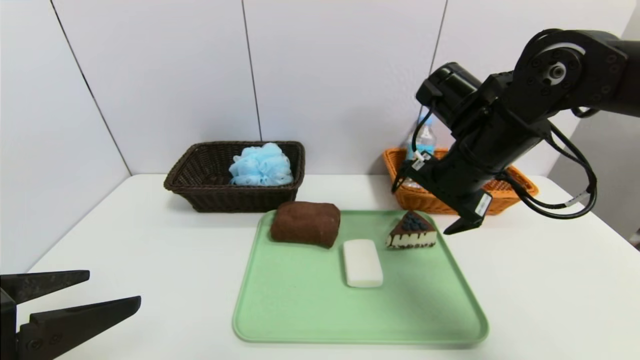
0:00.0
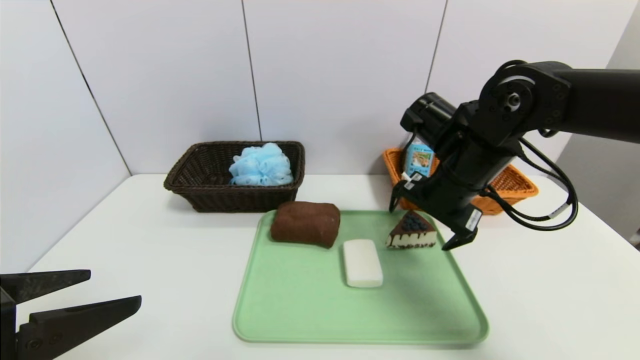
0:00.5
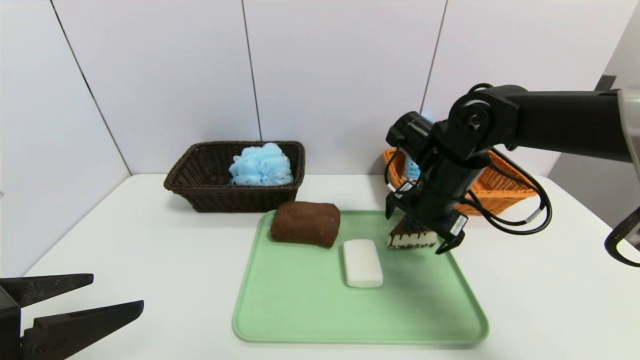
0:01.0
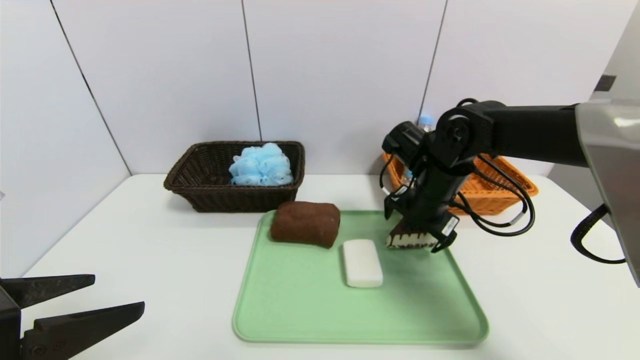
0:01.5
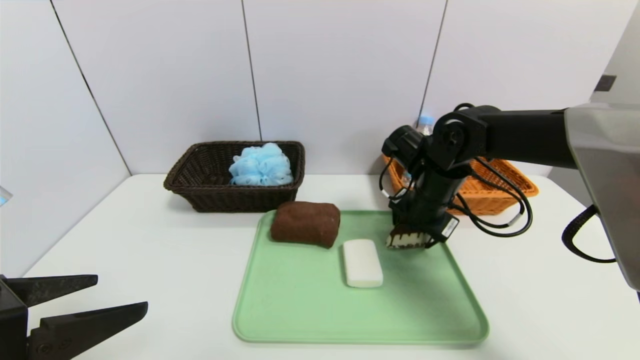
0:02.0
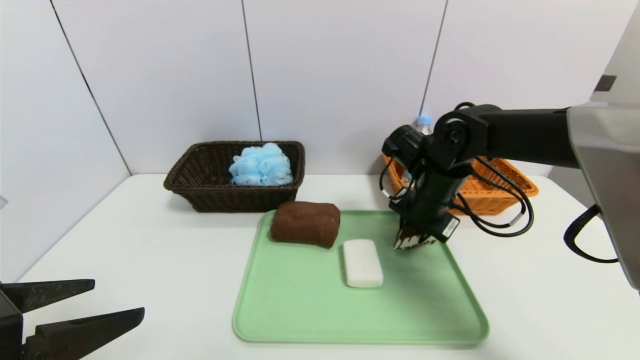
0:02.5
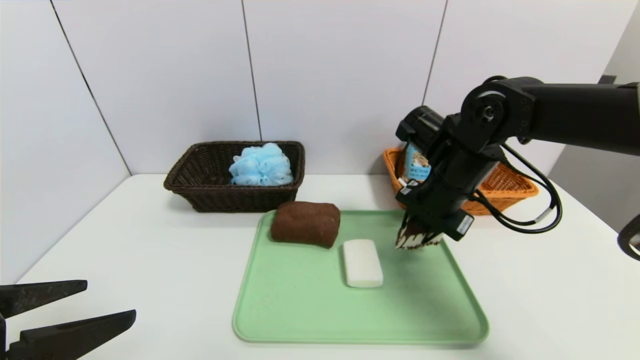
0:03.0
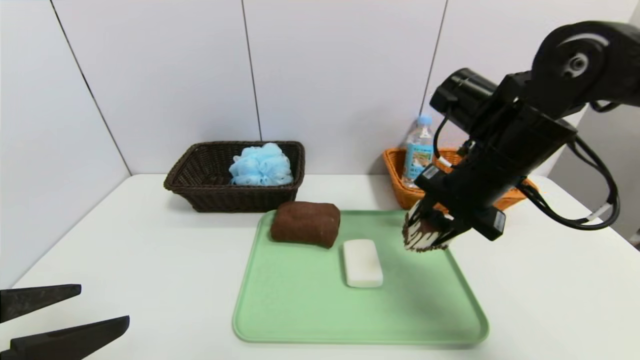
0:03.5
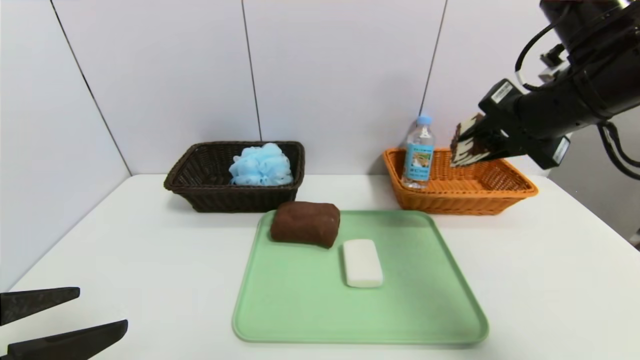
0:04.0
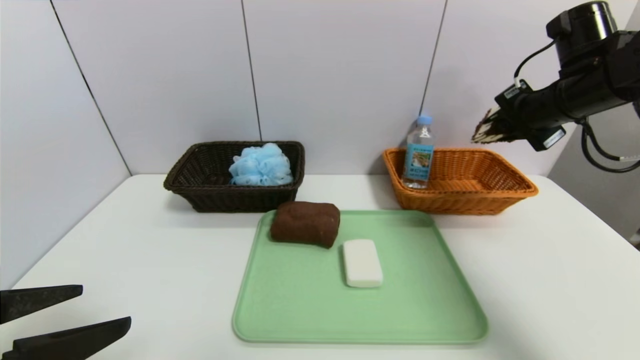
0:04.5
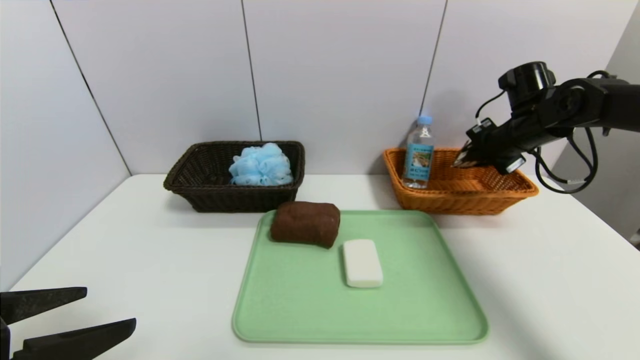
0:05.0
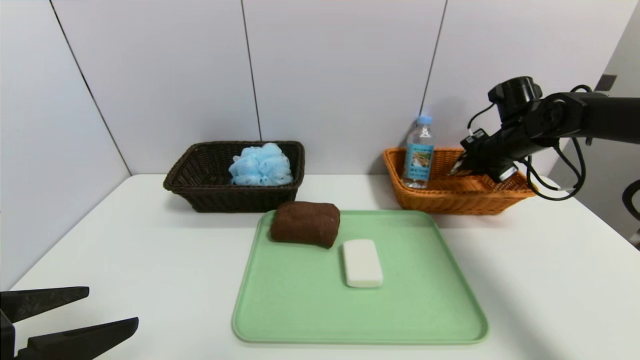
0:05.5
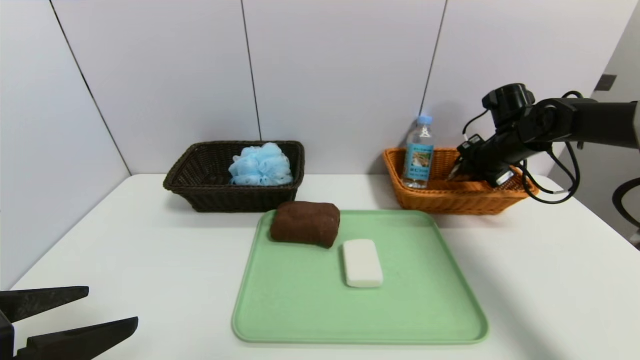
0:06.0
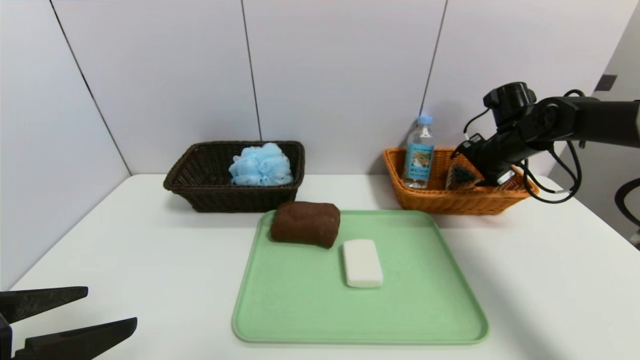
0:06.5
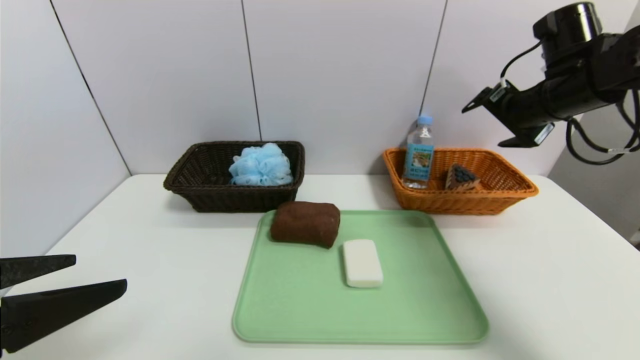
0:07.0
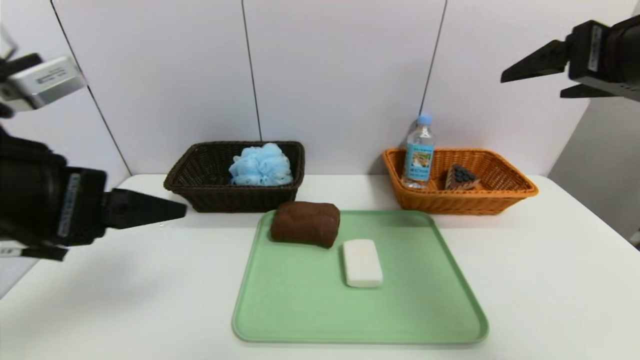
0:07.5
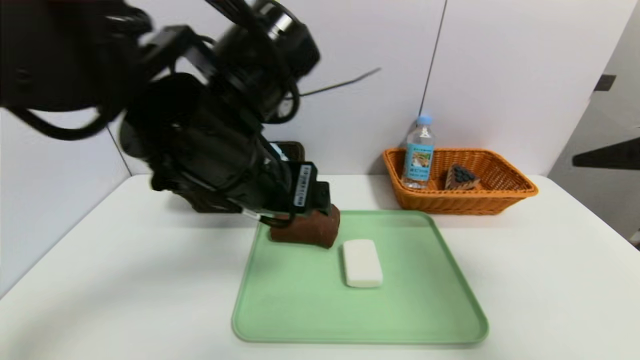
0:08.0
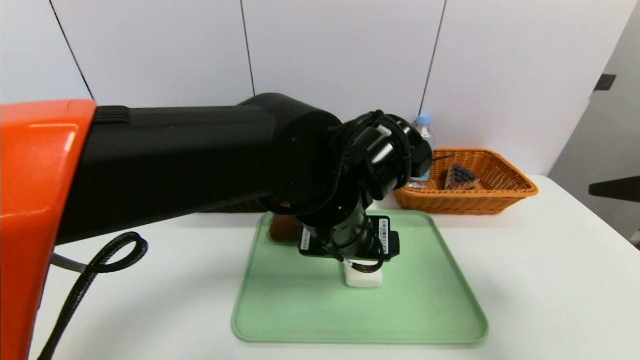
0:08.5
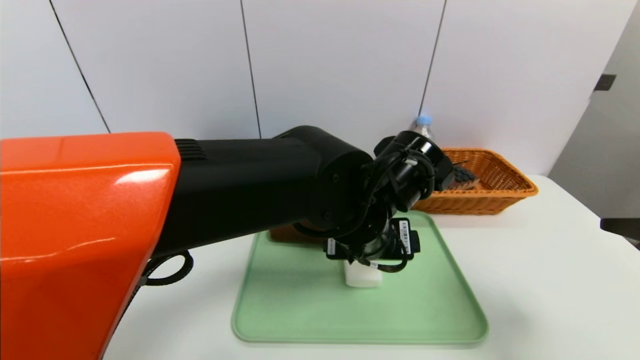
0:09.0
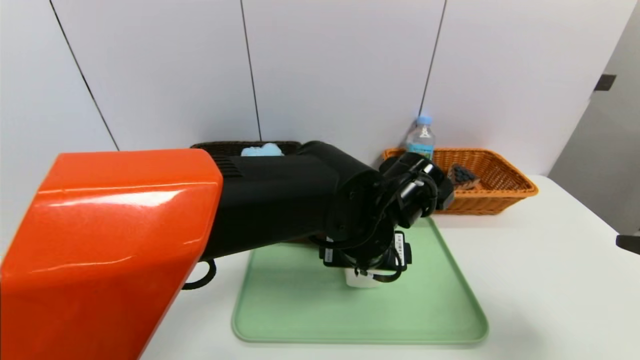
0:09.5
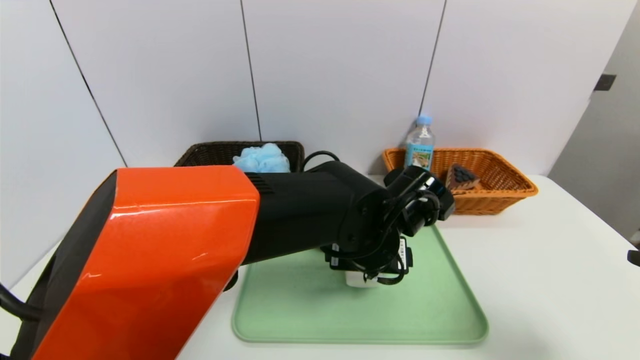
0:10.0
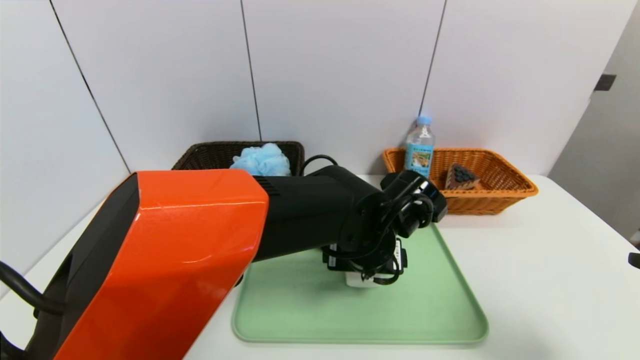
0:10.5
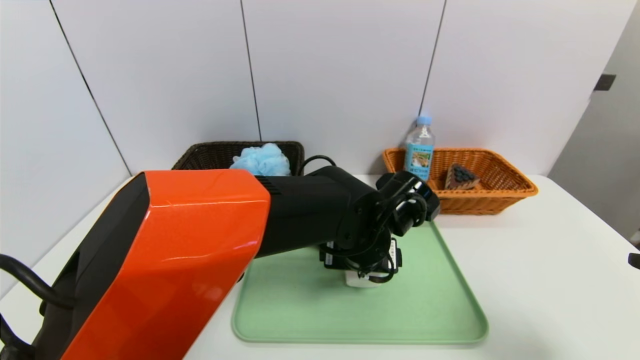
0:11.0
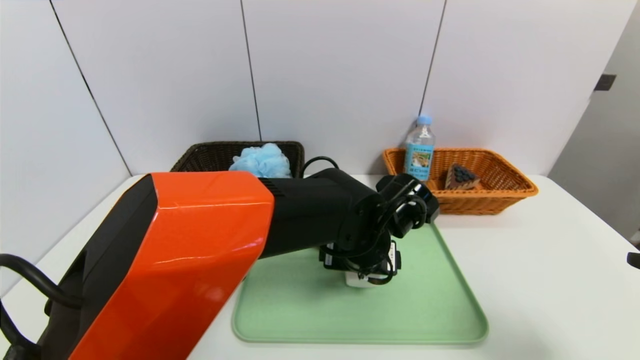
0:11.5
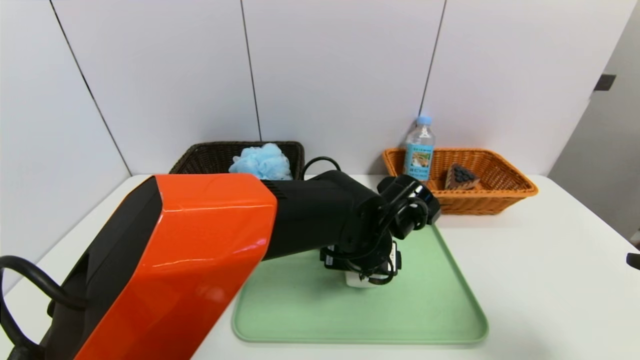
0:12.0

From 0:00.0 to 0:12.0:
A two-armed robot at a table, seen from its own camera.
Task of the whole recording: place the food in the right basket with the right gripper, and place the non food items in the left basket with the left gripper.
Step, from 0:00.0 to 0:06.5: Grasp the triangle cake and put it in the right basket.
From 0:00.0 to 0:02.0: The right gripper travels downward and forward by about 10 cm, and closes its fingers.
From 0:02.0 to 0:04.0: The right gripper is displaced upward, to the right and backward by approximately 20 cm, and closes up.
From 0:04.0 to 0:06.0: The right gripper travels forward, downward and to the right by about 25 cm.
From 0:06.0 to 0:08.0: The left gripper moves to the right and forward, roughly 25 cm. Meanwhile the right gripper is displaced backward and upward by approximately 35 cm, and opens up.
From 0:08.0 to 0:10.0: The left gripper is displaced downward and to the right by some 20 cm, while the right gripper heads backward and downward, covering roughly 10 cm.
From 0:10.0 to 0:12.0: The grippers move only a little.

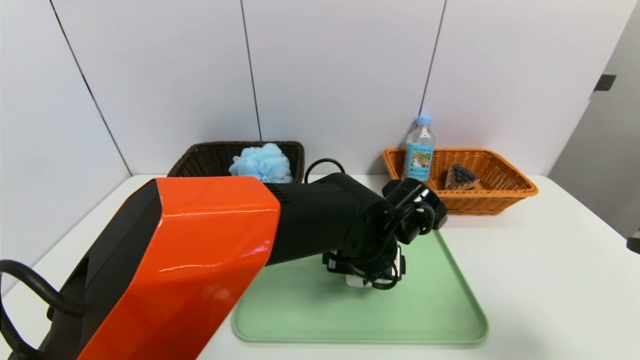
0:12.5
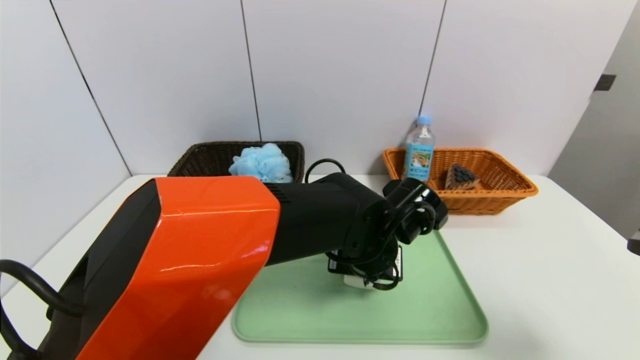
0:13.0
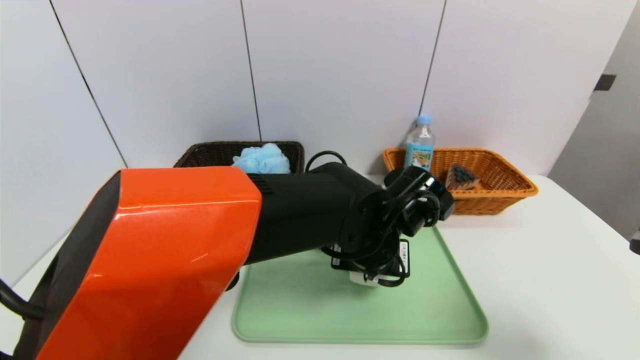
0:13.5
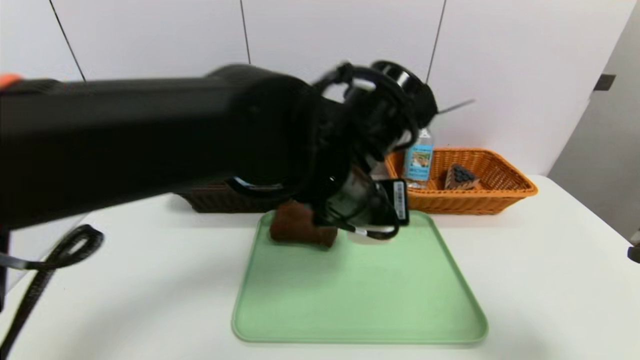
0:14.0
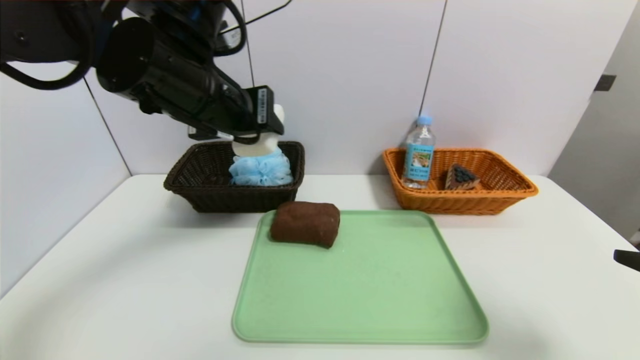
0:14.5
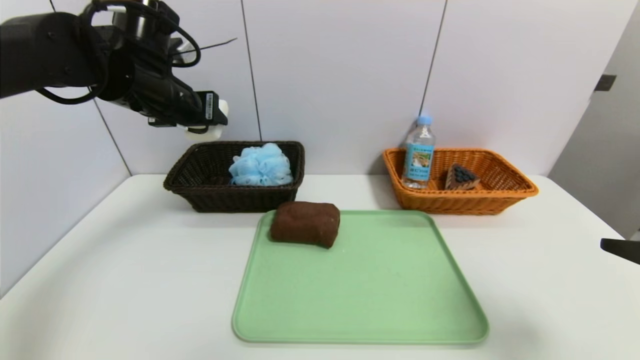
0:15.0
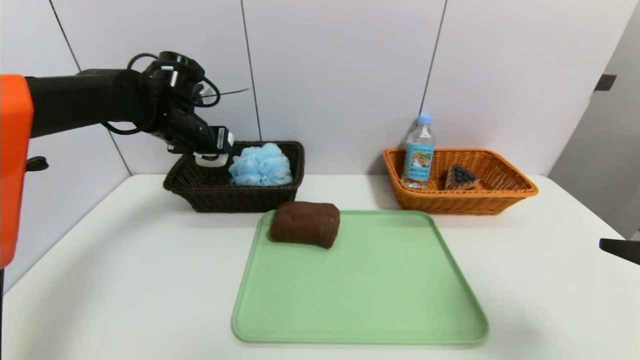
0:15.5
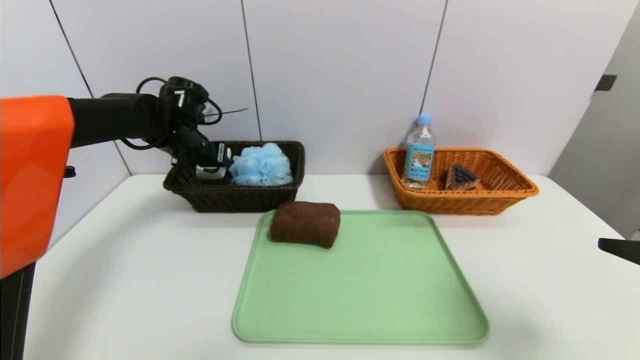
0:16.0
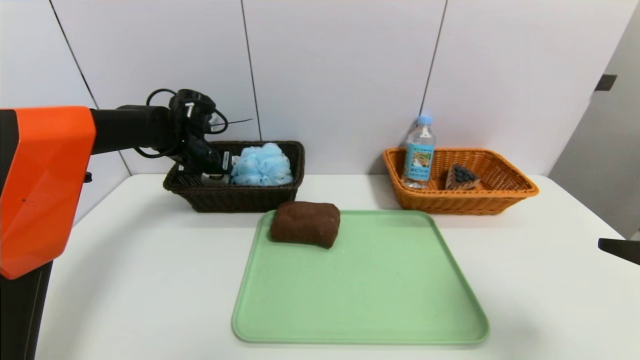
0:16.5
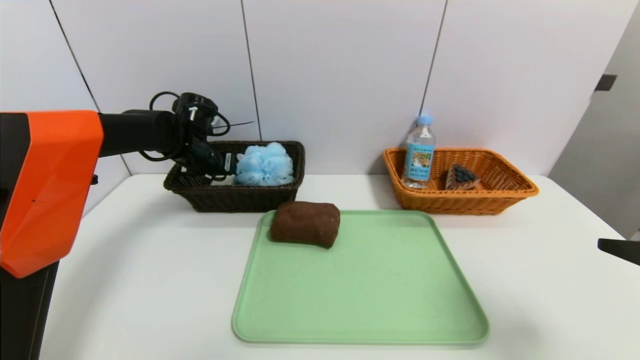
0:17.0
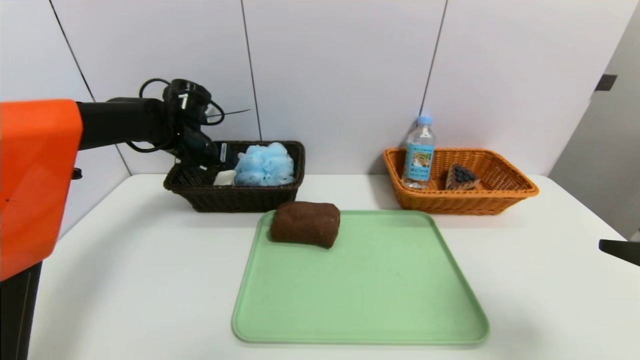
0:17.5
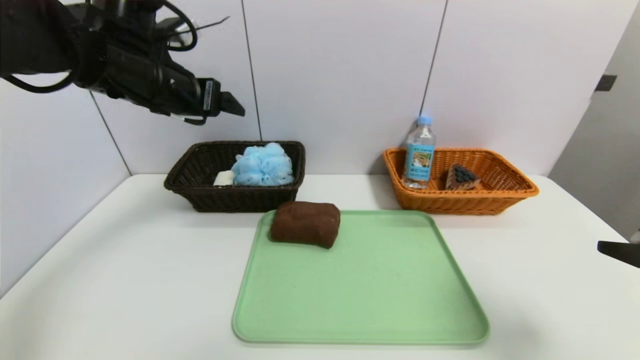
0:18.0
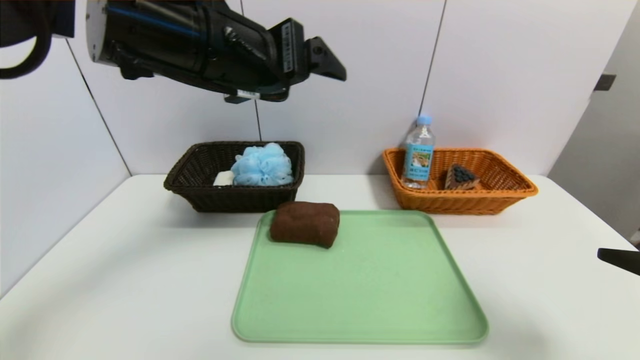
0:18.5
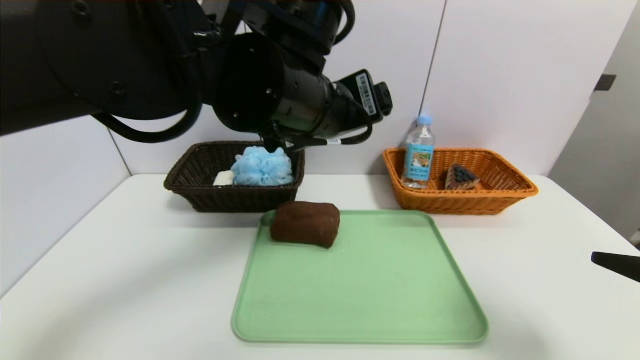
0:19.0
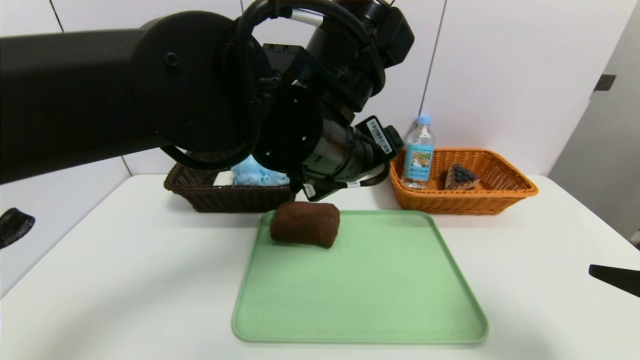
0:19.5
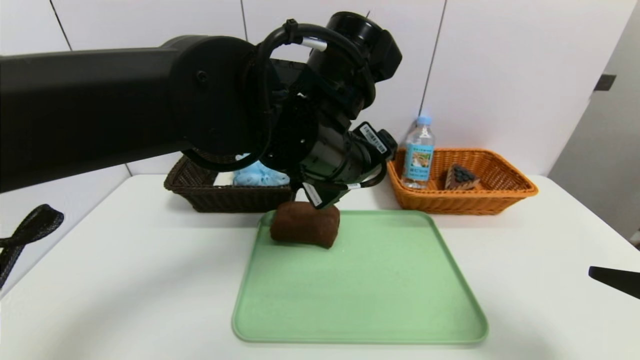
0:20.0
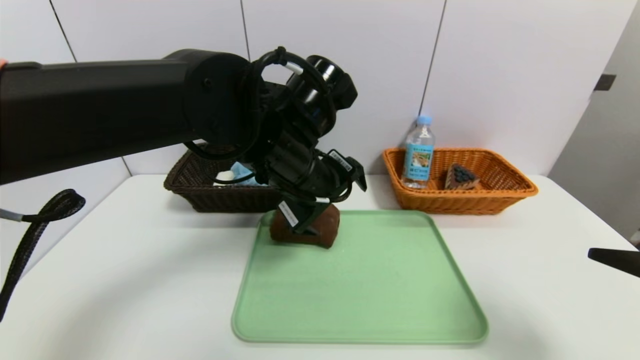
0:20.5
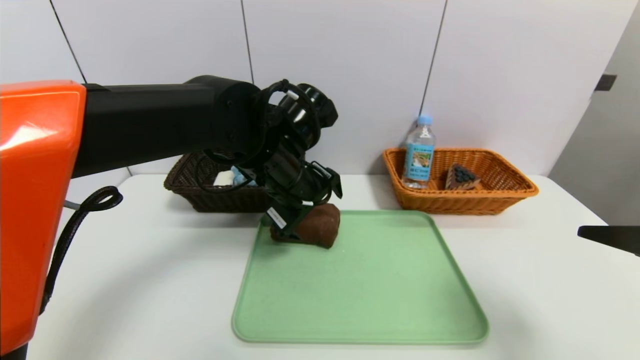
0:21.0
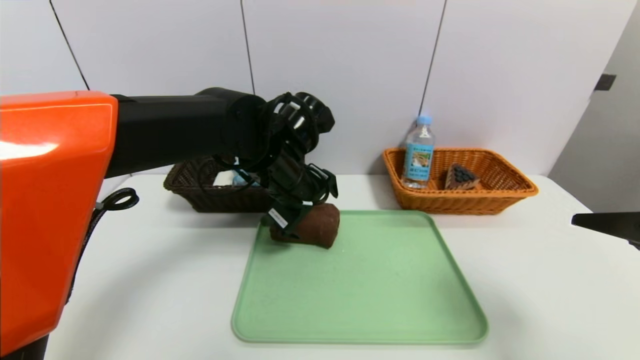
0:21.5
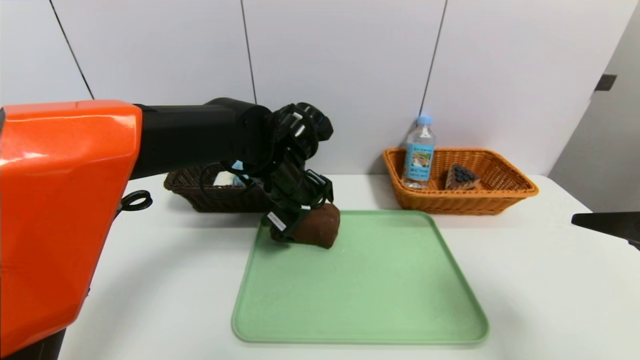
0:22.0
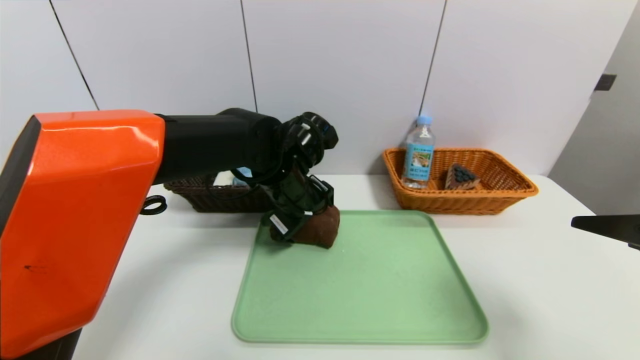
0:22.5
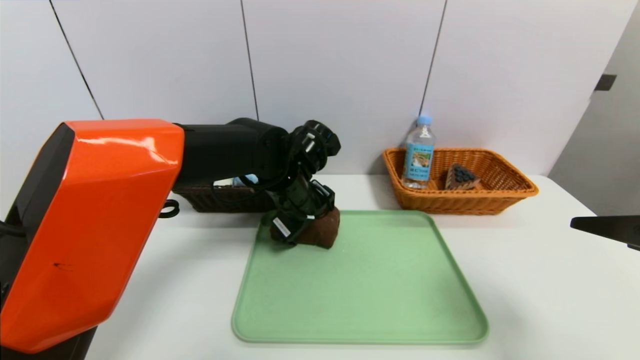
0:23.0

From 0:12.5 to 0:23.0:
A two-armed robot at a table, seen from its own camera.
Task of the whole recording: place the food in the right basket with the right gripper, and place the non food items in the left basket with the left gripper.
Step, from 0:12.5 to 0:17.5: Grasp the soap and put it in the left basket.
From 0:12.5 to 0:14.5: The left gripper is displaced upward and to the left by roughly 30 cm, and closes up.
From 0:14.5 to 0:16.5: The left gripper travels forward, downward and to the left by about 25 cm.
From 0:16.5 to 0:19.0: The left gripper travels backward, to the right and upward by approximately 35 cm, and opens up.
From 0:19.0 to 0:21.0: The left gripper moves downward and forward, some 15 cm.
From 0:21.0 to 0:23.0: The left gripper moves downward, roughly 5 cm.
